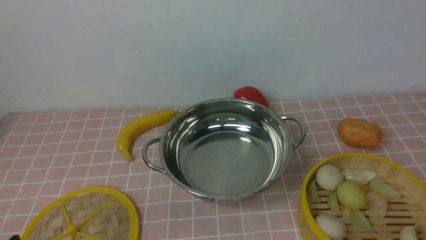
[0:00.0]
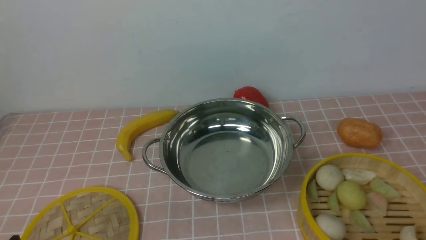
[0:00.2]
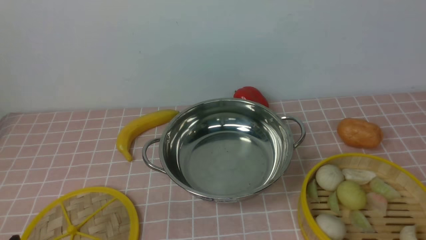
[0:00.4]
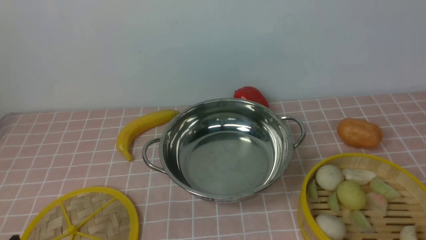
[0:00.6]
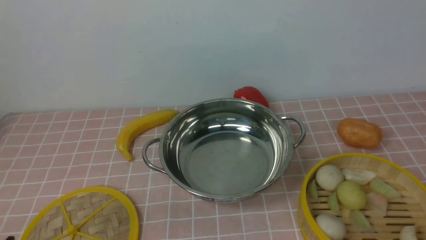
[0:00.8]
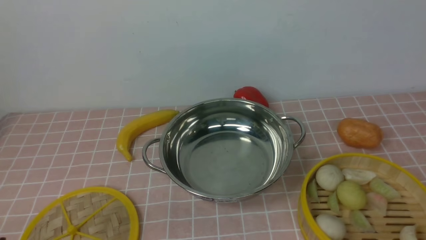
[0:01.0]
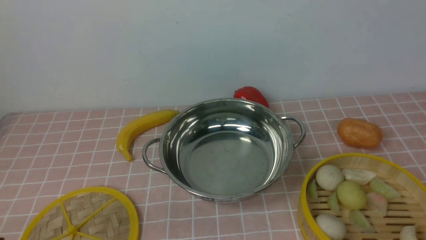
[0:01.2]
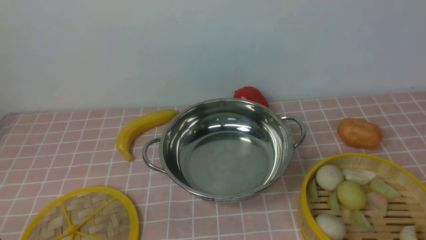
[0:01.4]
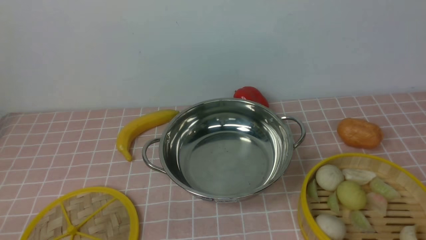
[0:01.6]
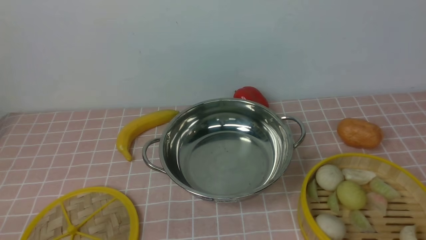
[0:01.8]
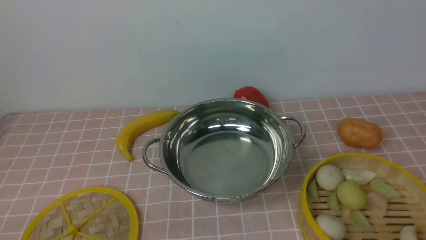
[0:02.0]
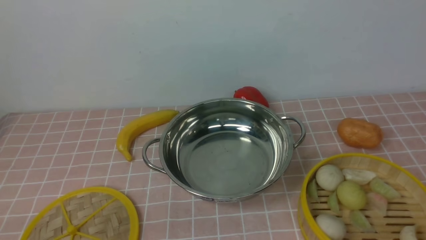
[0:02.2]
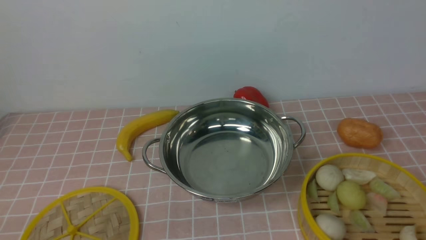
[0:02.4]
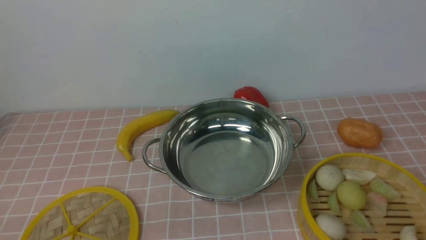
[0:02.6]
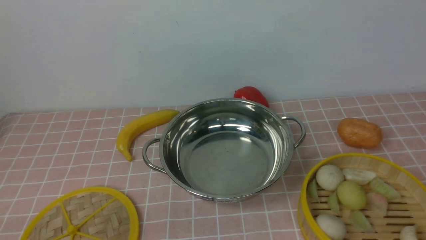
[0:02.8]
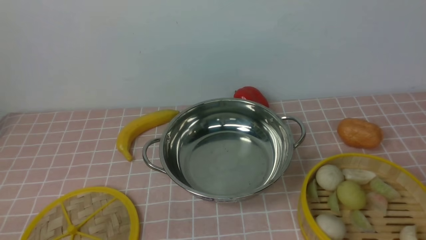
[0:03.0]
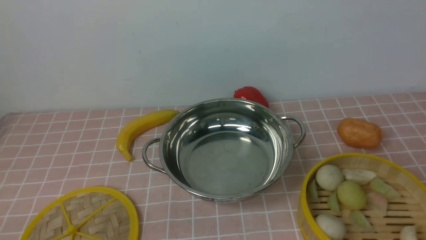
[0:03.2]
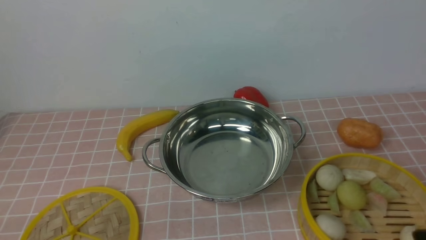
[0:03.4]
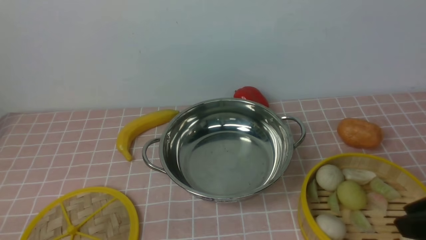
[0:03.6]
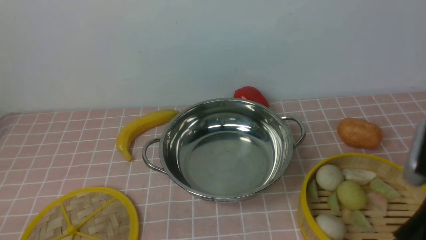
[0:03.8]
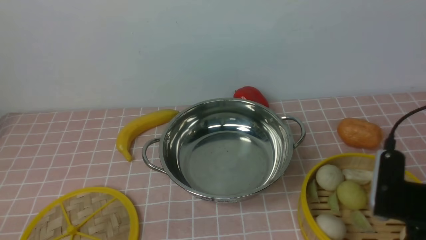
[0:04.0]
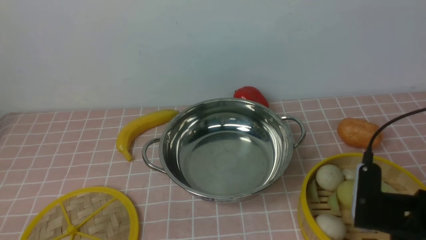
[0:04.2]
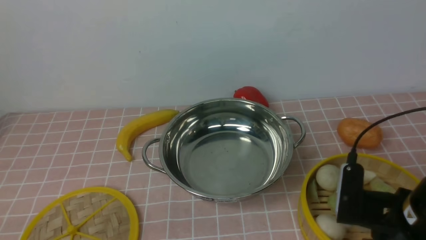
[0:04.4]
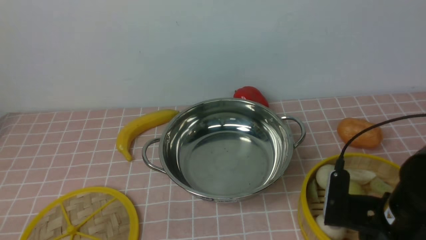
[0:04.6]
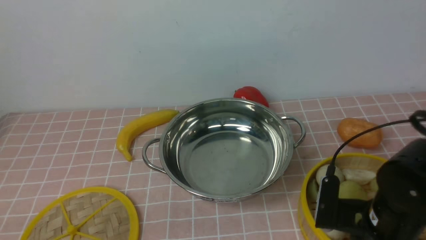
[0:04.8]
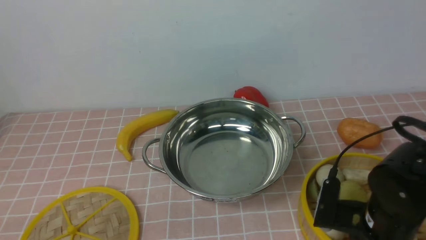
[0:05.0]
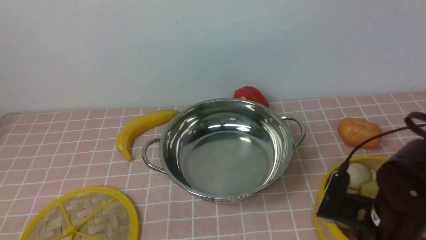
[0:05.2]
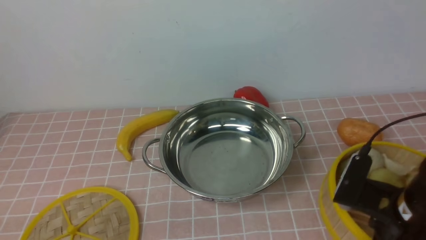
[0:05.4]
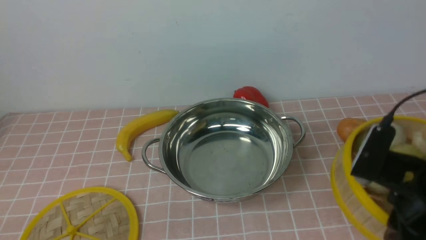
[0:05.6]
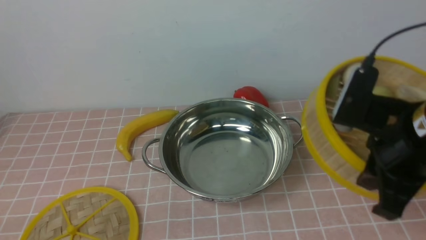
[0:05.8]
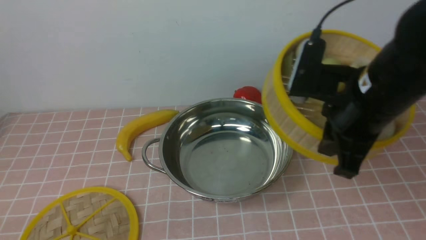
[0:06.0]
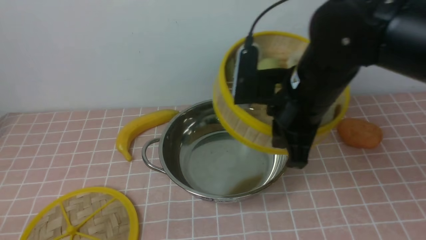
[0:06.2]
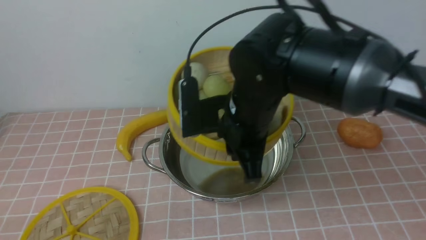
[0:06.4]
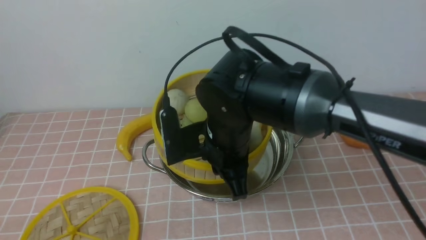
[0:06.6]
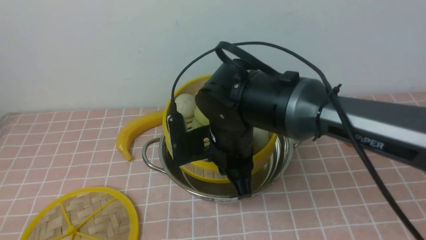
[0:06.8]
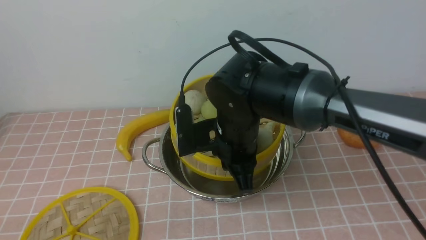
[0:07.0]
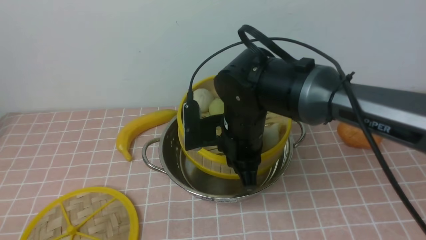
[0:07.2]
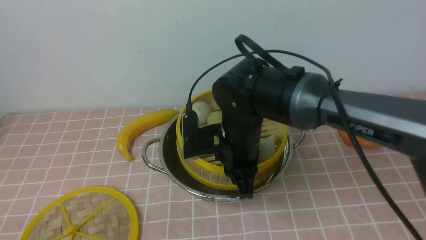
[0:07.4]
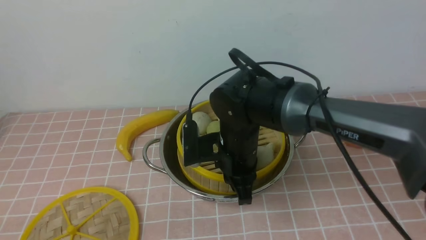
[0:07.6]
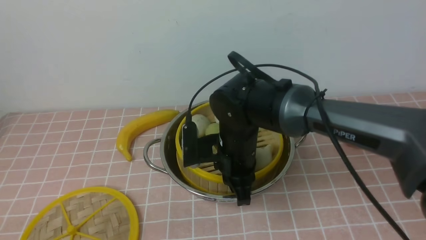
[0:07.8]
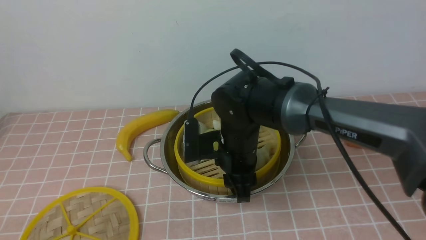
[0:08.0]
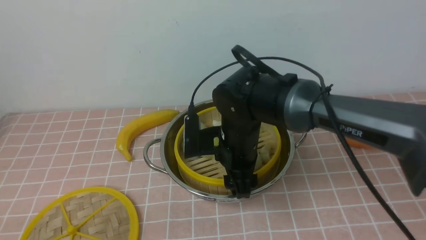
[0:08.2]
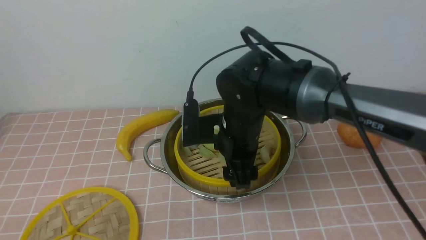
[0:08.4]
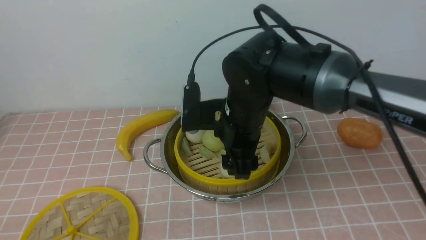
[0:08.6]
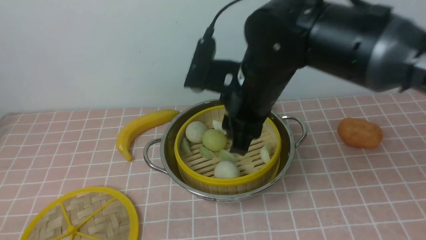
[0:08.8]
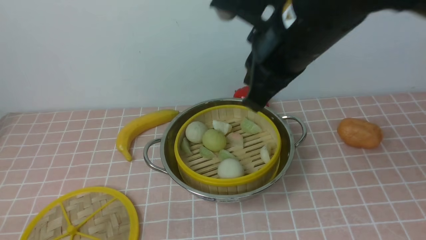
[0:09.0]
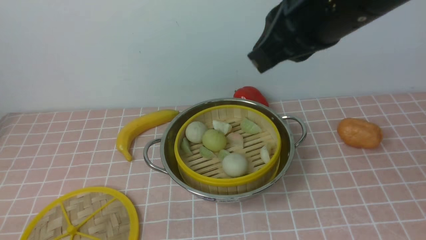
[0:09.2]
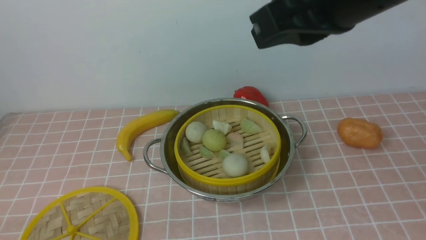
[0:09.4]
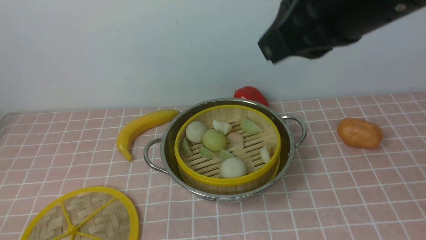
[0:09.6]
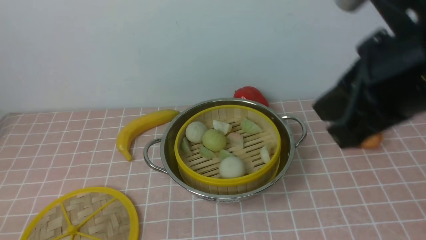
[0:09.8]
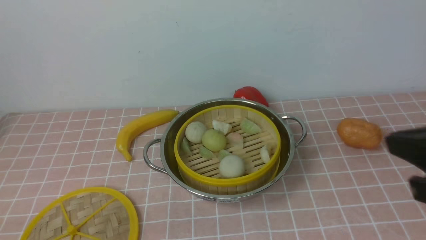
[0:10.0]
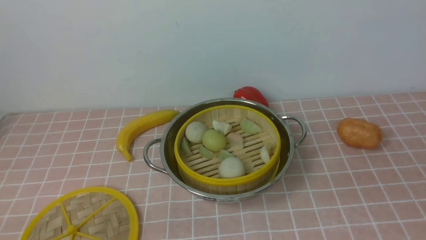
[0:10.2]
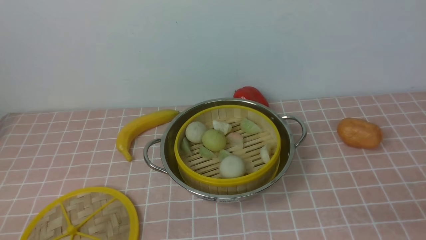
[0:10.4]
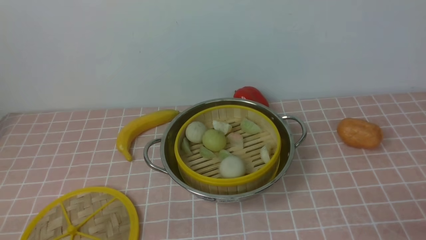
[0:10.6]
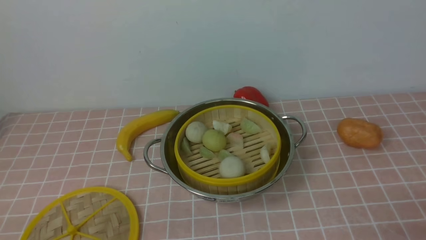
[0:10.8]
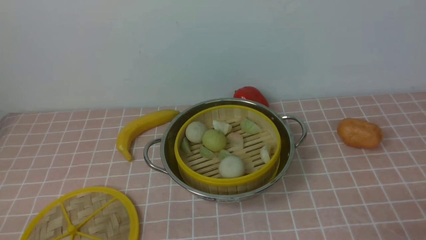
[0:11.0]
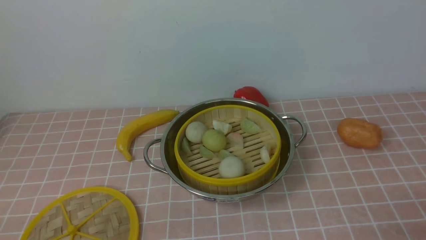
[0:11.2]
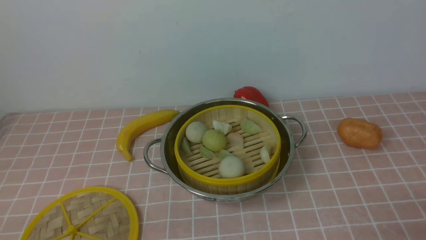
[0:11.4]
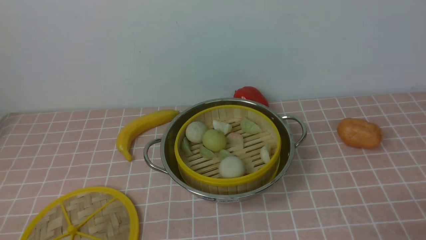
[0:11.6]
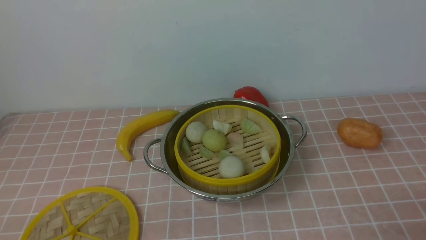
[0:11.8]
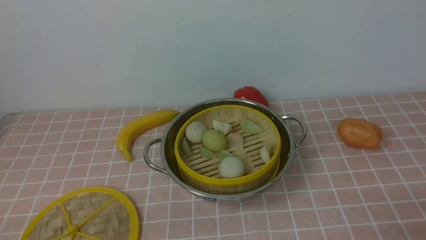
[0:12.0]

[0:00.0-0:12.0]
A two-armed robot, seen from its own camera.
Task of the whole recording: place the steamer in the pot on the pink tablecloth, and put the lid on the steamer.
Step, 0:00.0 to 0:05.2: use the right arm to lift the steamer closest to it.
Step, 0:05.4 to 0:08.4: use the right arm to put the steamer into the iron steamer pot in the middle.
0:03.0 to 0:04.4: The right gripper shifts about 15 cm forward and to the left.
0:04.4 to 0:06.0: The right gripper shifts about 15 cm upward, forward and to the left, and closes.
0:06.0 to 0:07.6: The right gripper goes some 20 cm to the left, downward and forward.
0:07.6 to 0:09.0: The right gripper heads upward, covering some 20 cm, and opens, then closes again.
0:09.0 to 0:10.4: The right gripper heads to the right, backward and downward, covering approximately 35 cm.

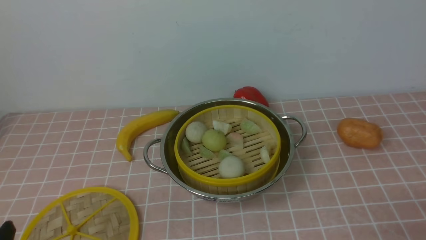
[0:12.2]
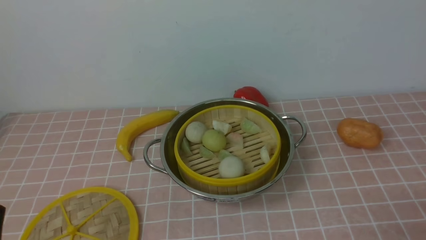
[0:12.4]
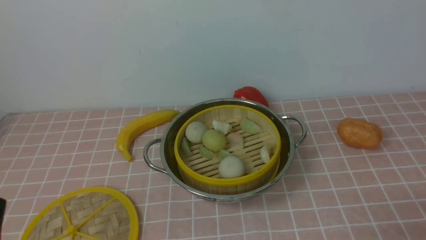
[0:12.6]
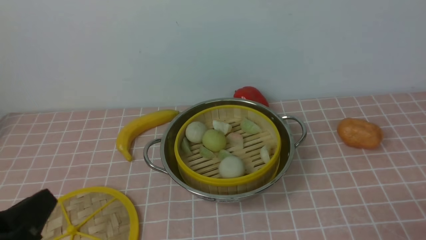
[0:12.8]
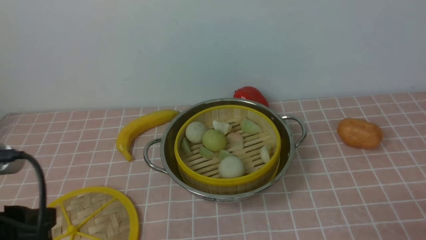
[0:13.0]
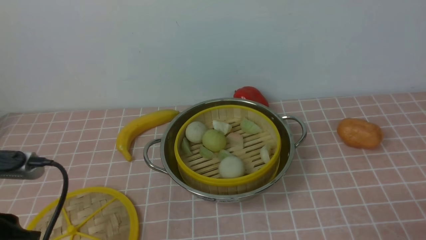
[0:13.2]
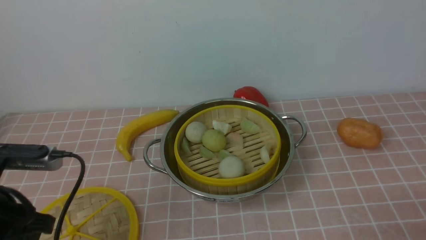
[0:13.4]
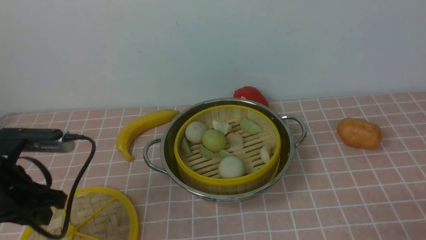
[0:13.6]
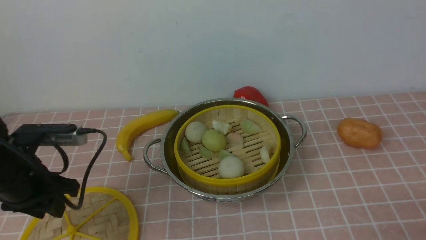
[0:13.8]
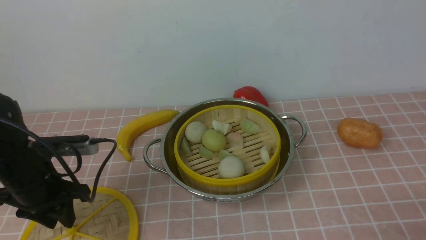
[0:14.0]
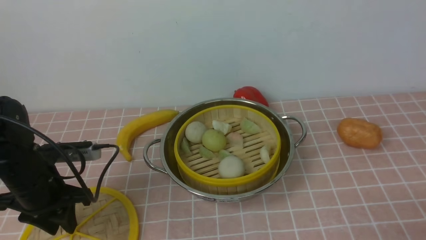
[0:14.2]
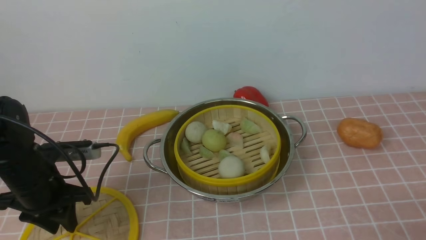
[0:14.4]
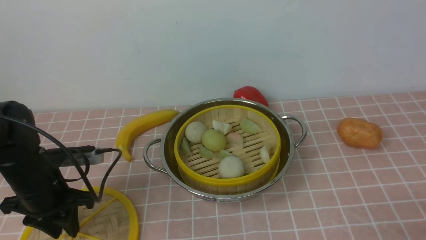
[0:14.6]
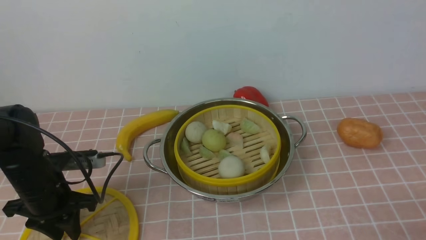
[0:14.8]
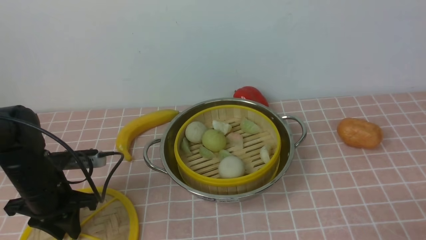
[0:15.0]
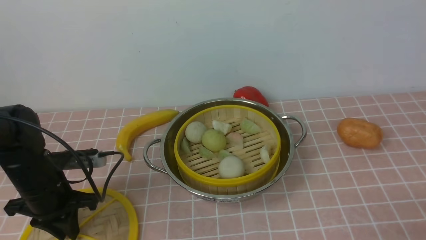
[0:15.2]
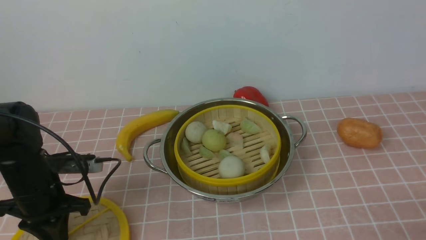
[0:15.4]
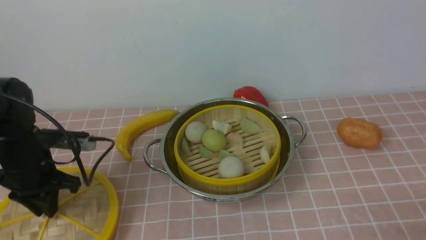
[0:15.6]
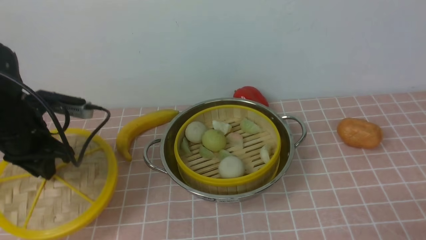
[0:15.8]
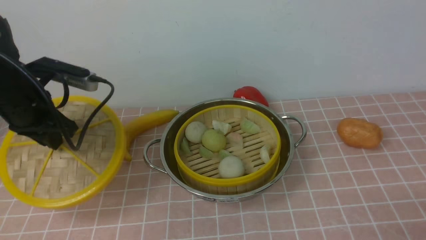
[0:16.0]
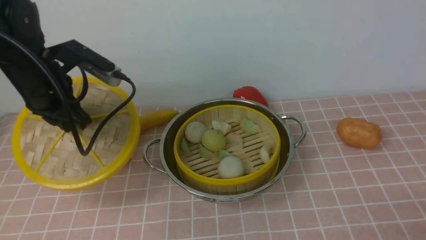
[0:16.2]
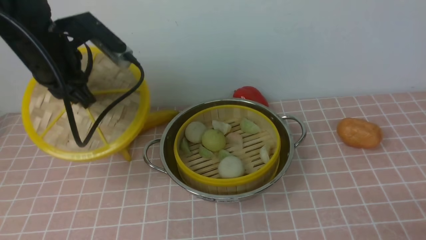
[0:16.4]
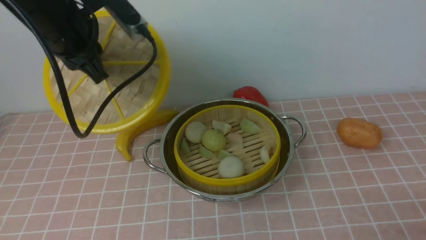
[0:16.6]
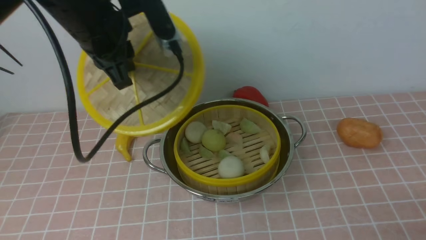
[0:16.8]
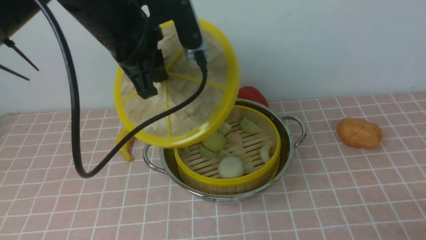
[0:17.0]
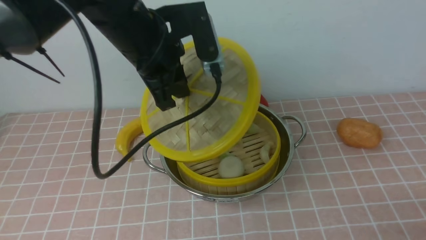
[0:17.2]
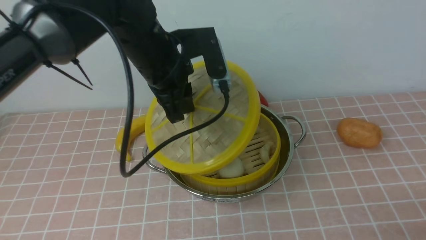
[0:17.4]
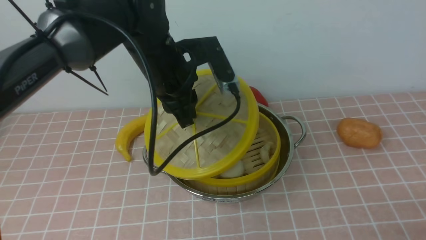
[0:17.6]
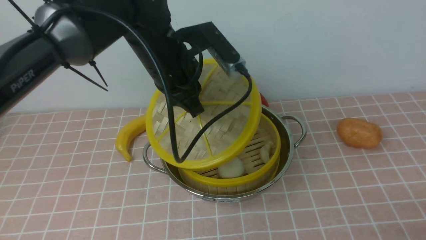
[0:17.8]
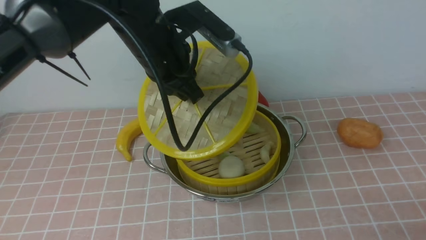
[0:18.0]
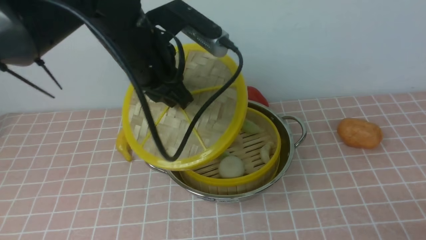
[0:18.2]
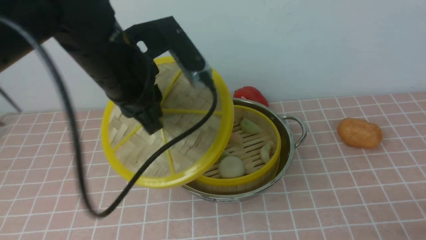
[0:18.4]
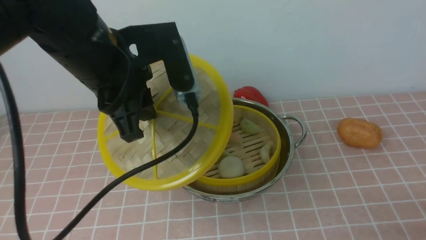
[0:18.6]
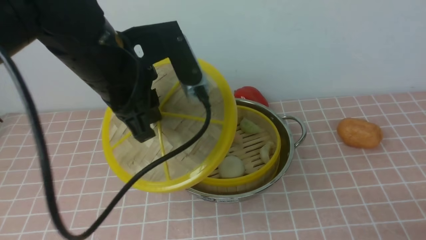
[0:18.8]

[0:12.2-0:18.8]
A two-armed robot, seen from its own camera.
Task of the whole recording: place the steamer in the pot on the pink tablecloth, and put the lid on the steamer.
Step, 0:12.2 to 0:15.4: use the left arm to lift the lid of the steamer.
0:12.2 to 0:13.8: The left gripper travels forward by some 20 cm.
0:13.8 to 0:15.4: The left gripper changes place by some 5 cm, and closes.
0:15.4 to 0:17.2: The left gripper goes roughly 25 cm to the right and upward.
0:17.2 to 0:18.8: The left gripper heads backward, covering approximately 5 cm.
